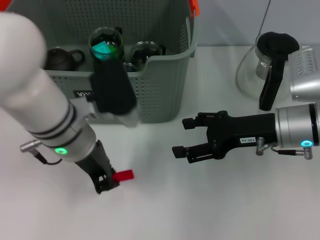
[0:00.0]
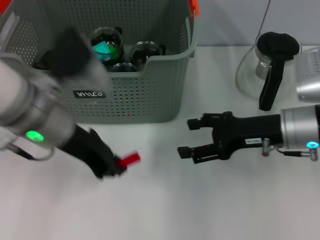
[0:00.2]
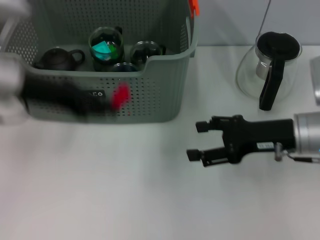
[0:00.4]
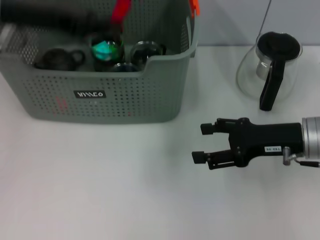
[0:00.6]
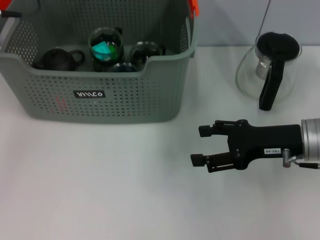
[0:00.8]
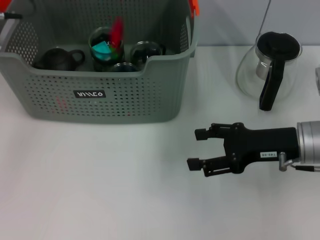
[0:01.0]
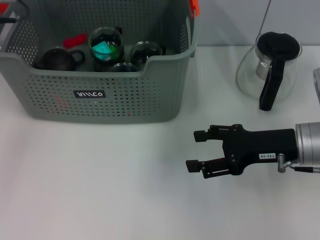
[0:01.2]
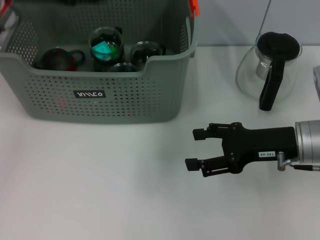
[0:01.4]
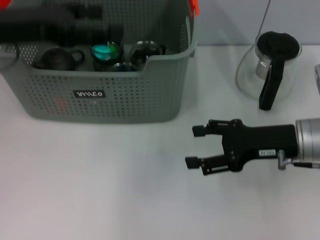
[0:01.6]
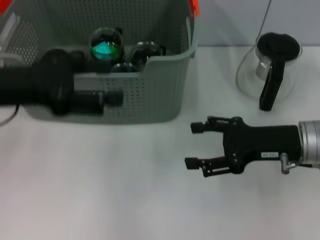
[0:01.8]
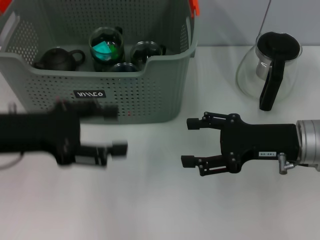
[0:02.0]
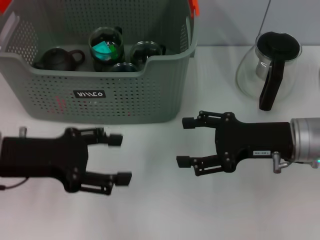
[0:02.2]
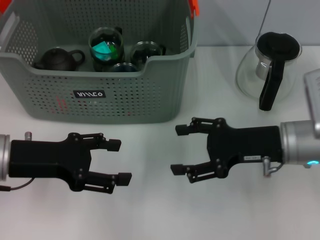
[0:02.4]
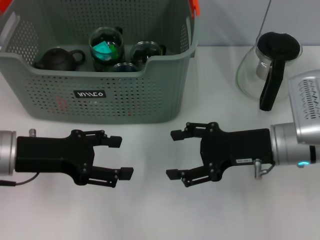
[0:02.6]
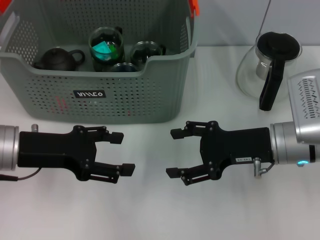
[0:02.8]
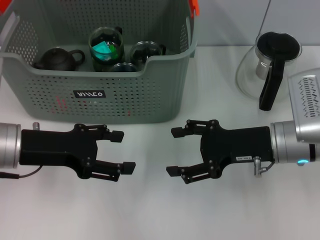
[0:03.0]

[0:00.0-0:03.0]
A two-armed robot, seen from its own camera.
Task of the whole recording: pick up the teacup on the table and place it into the storage bin, pick up the block on the table and place it into the storage bin.
Step, 0:00.0 to 0:01.2: Place the red block in the storage box with left gripper.
0:00.0 to 0:01.6: The left gripper is displaced to the left and upward by approximately 15 cm, moves approximately 10 cm forward and comes back, and opens up.
0:01.6 to 0:03.0: The left gripper shifts some 15 cm downward and backward.

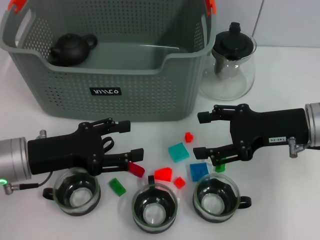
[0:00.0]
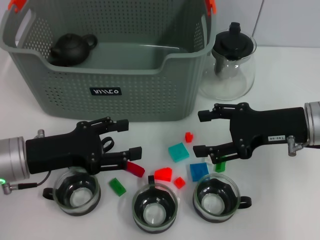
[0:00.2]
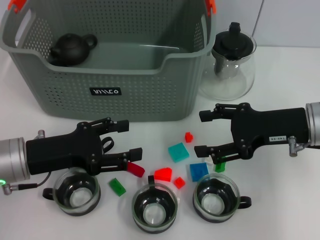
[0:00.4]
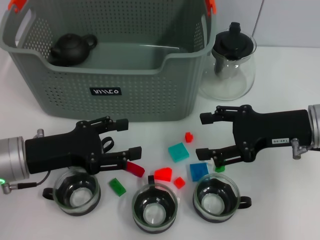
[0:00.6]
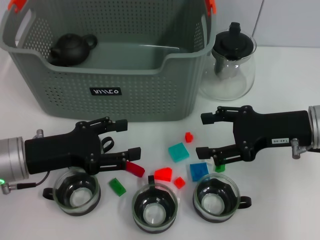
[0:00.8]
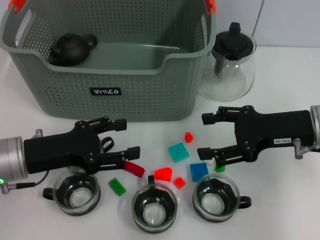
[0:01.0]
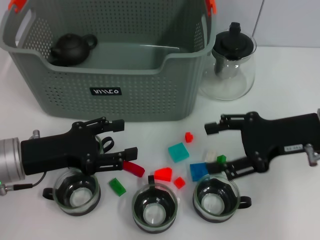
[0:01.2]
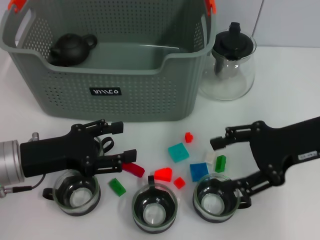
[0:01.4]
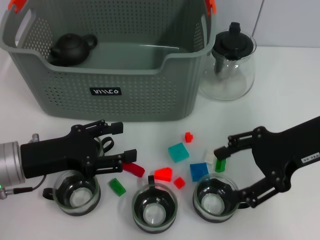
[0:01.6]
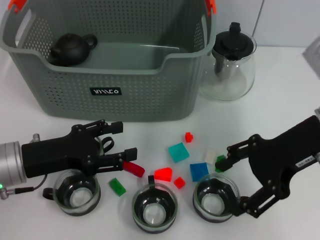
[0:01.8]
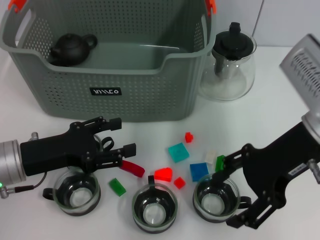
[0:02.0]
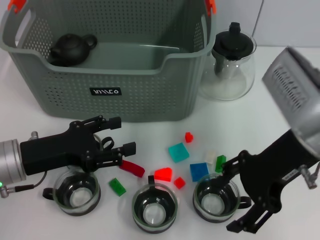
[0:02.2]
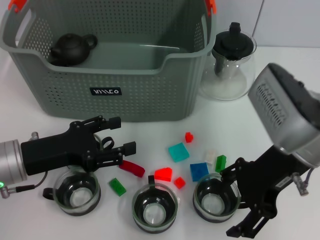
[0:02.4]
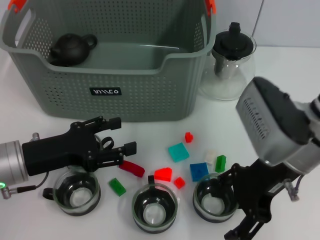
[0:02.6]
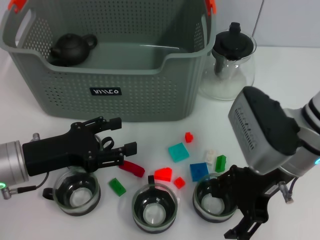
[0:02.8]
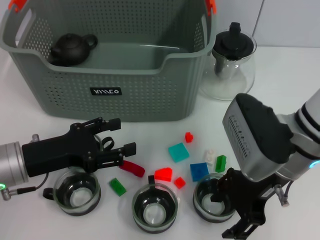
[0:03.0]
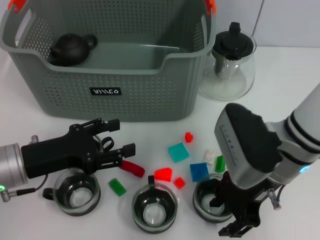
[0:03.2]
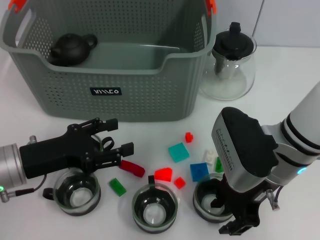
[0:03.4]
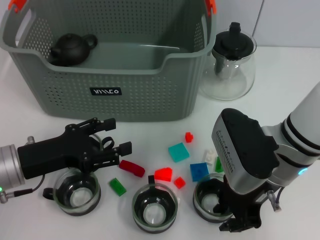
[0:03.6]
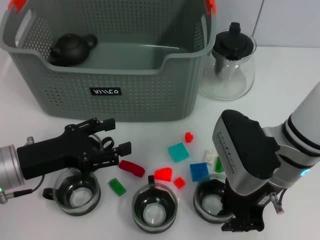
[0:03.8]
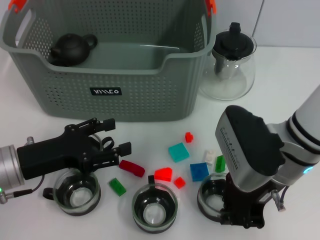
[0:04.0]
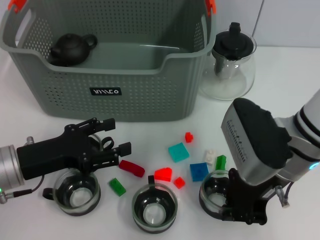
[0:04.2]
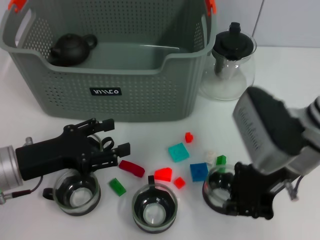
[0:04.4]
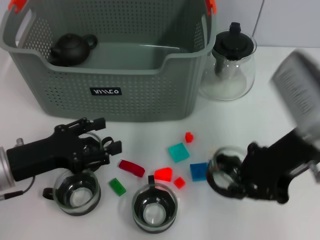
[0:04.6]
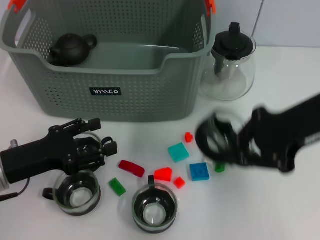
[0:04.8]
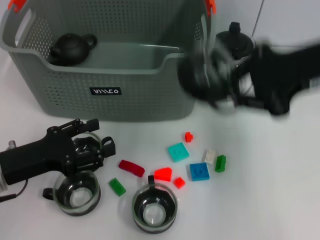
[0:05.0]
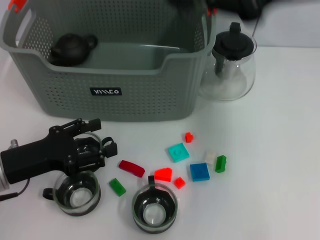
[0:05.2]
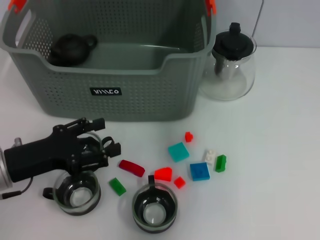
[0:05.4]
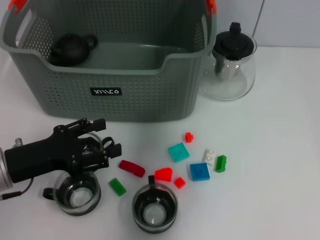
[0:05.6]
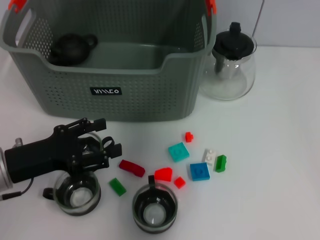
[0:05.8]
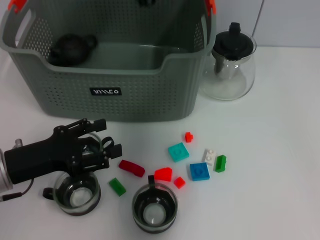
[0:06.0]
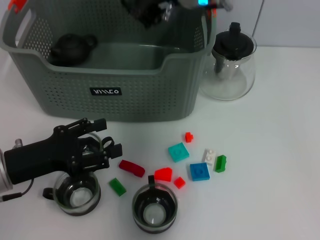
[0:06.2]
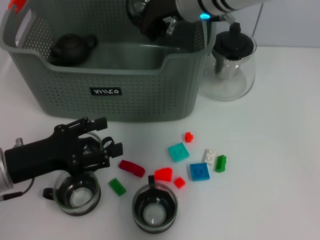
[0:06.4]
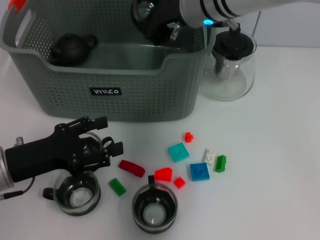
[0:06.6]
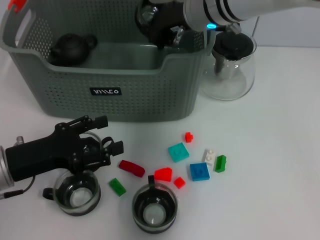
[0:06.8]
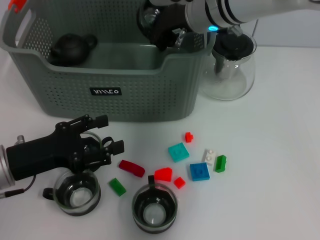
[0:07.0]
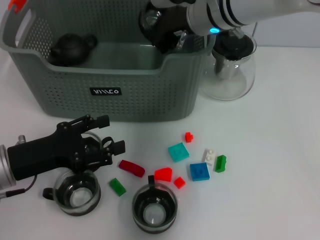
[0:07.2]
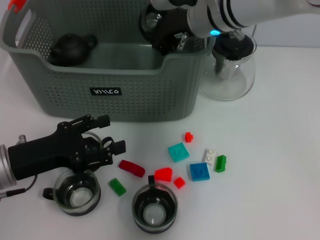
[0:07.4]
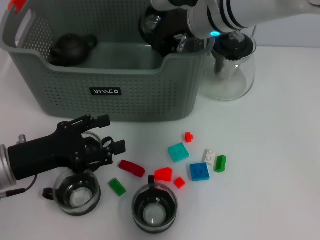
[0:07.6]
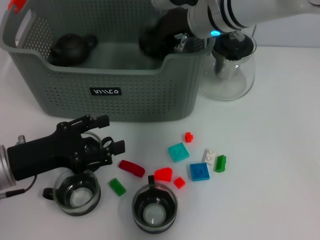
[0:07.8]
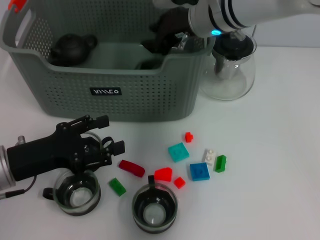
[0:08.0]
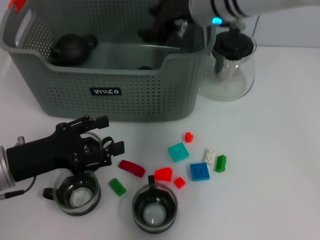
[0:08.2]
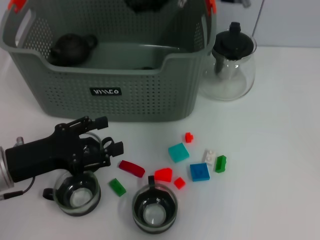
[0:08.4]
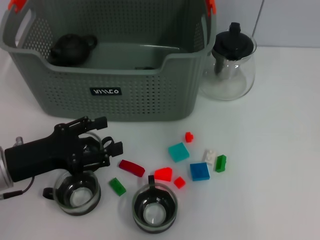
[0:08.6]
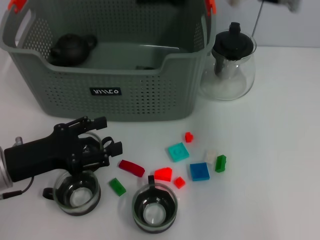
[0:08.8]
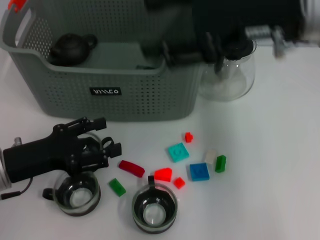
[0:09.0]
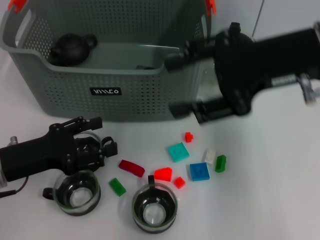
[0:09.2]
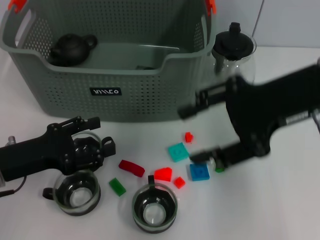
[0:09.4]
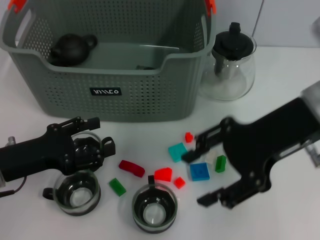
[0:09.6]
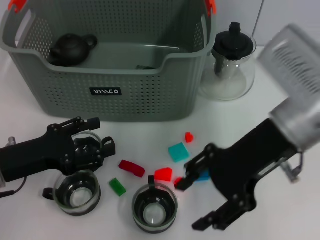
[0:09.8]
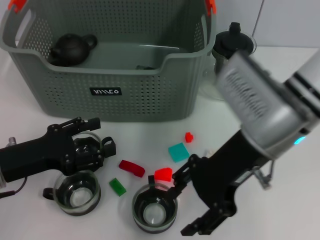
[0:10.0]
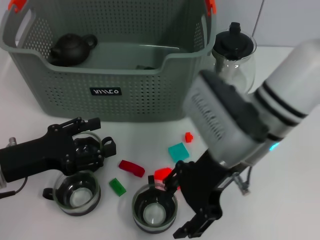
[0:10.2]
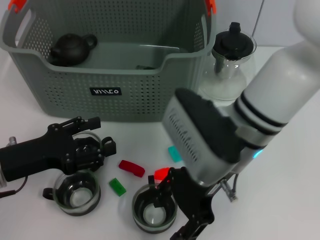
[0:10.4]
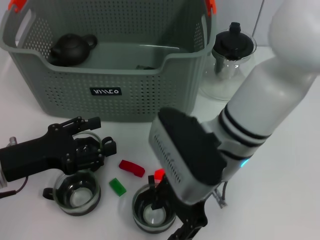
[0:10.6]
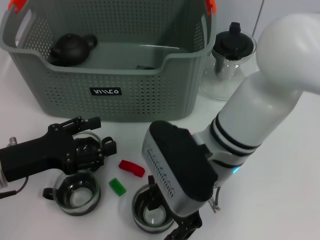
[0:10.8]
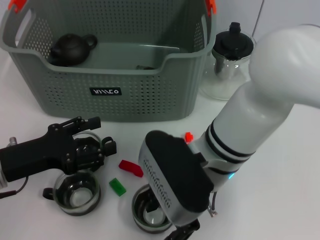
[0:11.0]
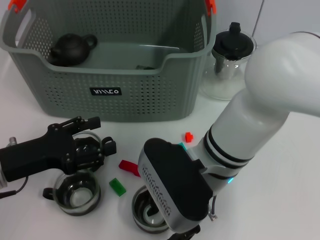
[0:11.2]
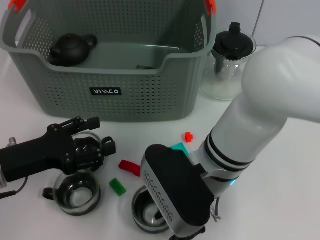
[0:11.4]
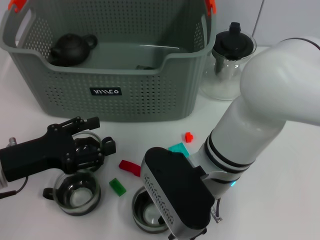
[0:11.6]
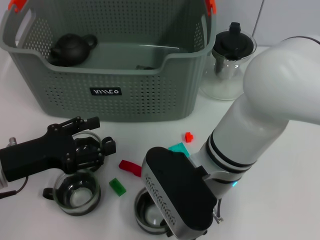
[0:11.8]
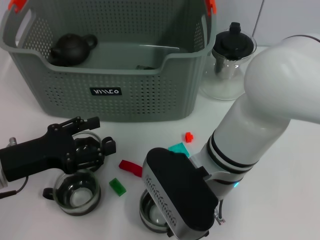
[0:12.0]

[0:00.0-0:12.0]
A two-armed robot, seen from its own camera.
Task of the whole recording: pick up the teacup on the table and place it into the storage bin, pick up the block on the table and place it into the storage bin.
Step, 0:00.0 to 0:03.8: Grasp the cup with right gripper.
Step, 0:04.0 to 0:08.0: Place the cup in the storage box with right gripper.
0:00.0 to 0:01.6: The right gripper moves about 5 cm.
0:01.6 to 0:03.0: The right gripper shifts approximately 10 cm to the left.
0:03.0 to 0:04.4: The right gripper closes its fingers.
0:04.4 to 0:06.0: The right gripper shifts roughly 25 cm forward, to the left and upward.
0:06.0 to 0:07.6: The right gripper heads downward, covering roughly 5 cm.
0:07.6 to 0:09.0: The right gripper shifts approximately 15 cm backward, to the right and upward, and opens.
0:09.0 to 0:10.4: The right gripper goes roughly 15 cm downward and to the left.
0:10.4 to 0:12.0: The right gripper shifts by roughly 5 cm, and closes.

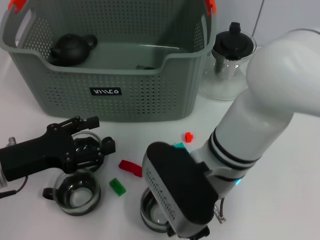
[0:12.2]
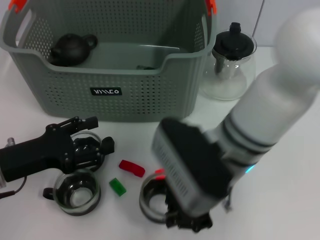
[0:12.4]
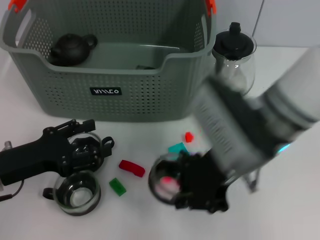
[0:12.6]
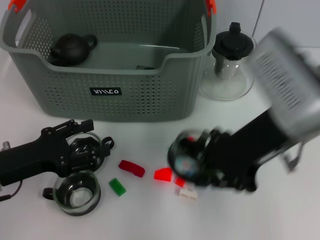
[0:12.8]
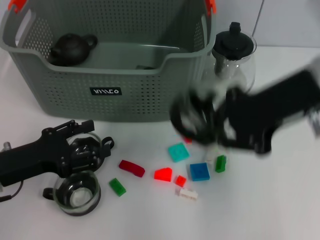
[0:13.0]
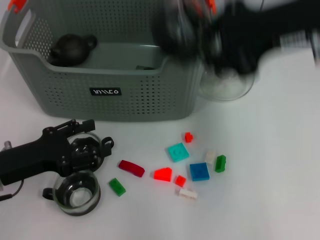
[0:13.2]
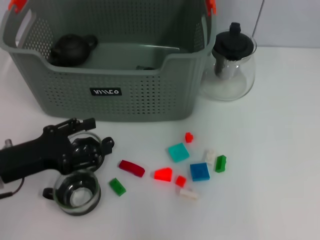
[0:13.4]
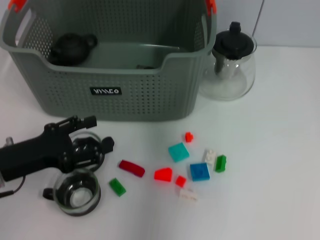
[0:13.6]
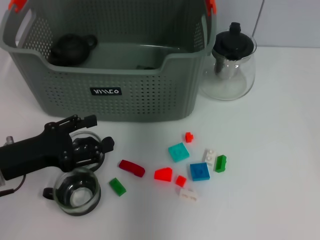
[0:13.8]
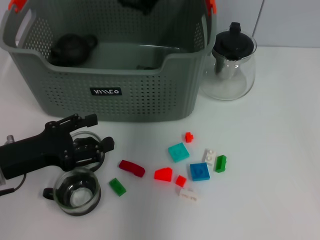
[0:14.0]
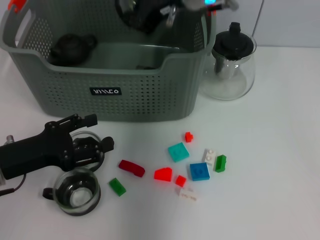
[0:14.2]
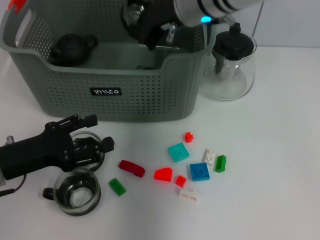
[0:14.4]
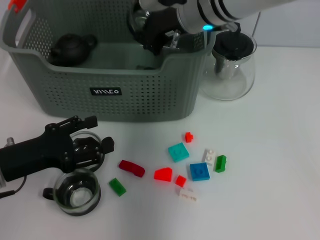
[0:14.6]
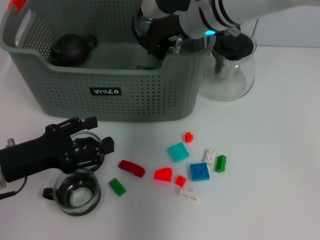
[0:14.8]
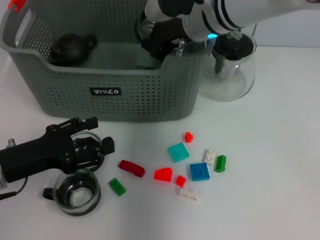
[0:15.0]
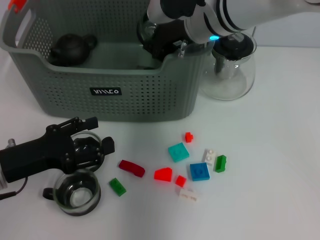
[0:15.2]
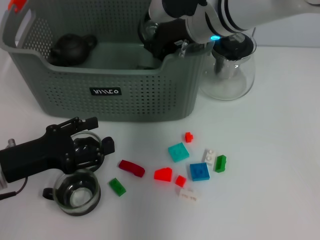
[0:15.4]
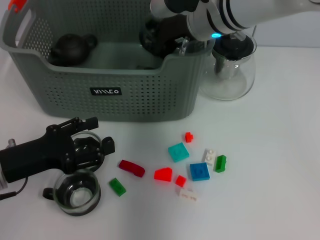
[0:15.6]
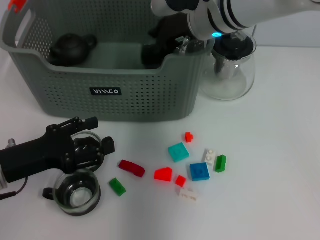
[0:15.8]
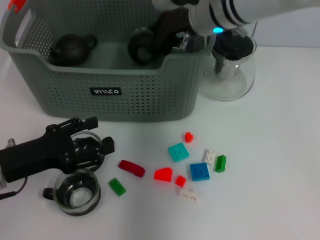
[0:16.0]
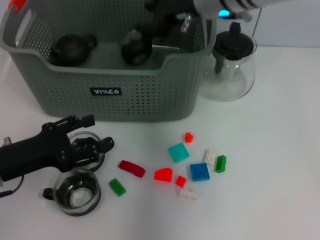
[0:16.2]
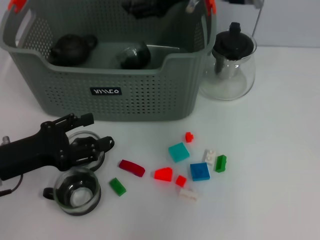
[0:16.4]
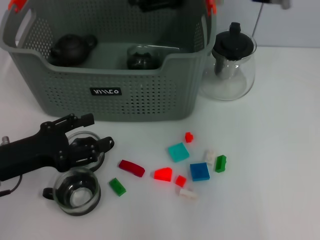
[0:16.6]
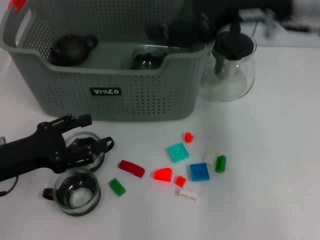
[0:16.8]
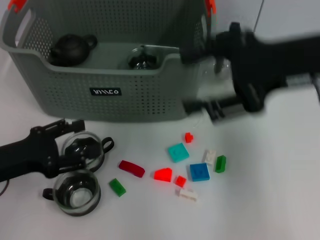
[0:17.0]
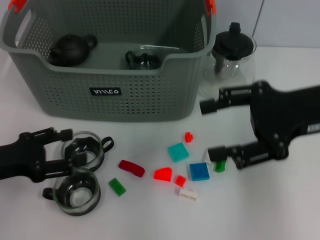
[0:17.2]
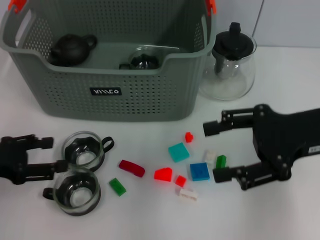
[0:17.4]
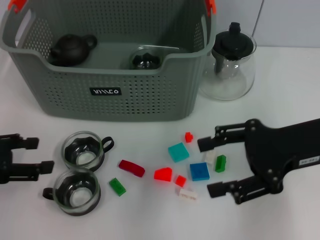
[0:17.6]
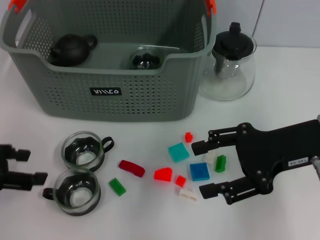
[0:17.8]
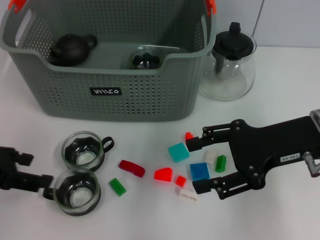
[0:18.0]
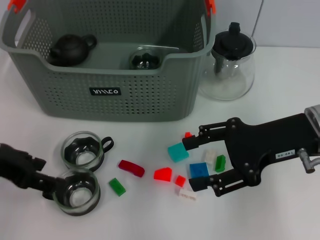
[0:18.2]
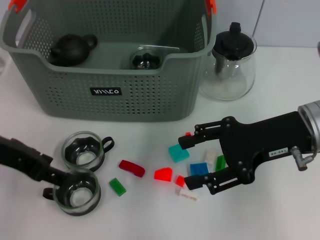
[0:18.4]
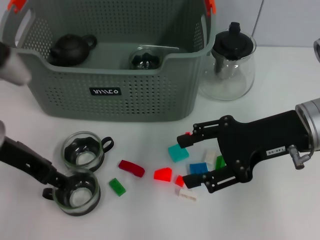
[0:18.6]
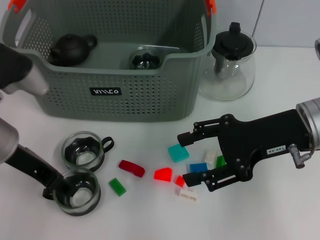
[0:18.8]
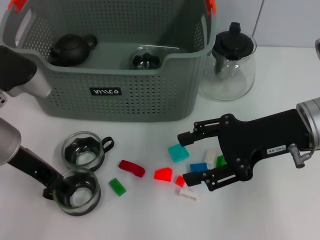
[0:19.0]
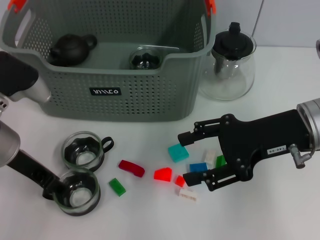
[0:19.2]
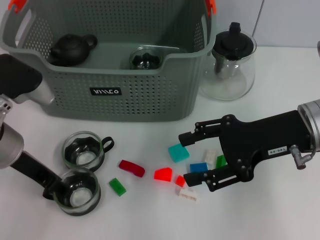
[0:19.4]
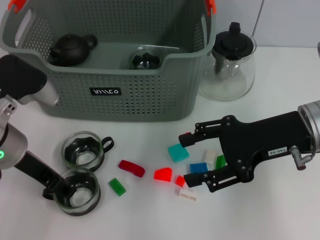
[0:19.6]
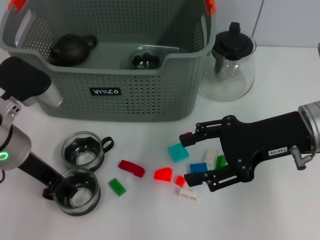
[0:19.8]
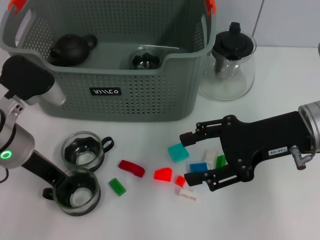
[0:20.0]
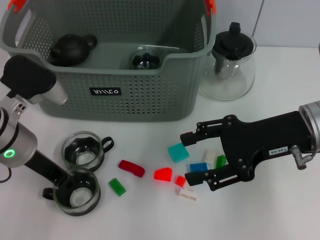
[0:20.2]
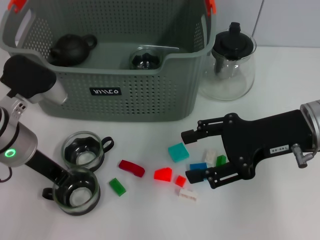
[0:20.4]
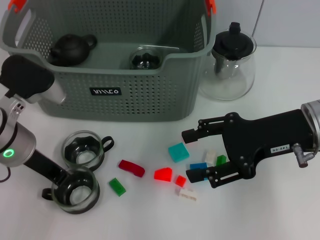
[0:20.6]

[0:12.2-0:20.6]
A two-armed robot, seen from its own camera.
Task of the whole recording: pick up the teacup on the table and place it into the storage bin, pick up the block on the table and place it into the storage bin.
Step, 0:12.2 to 0:16.0: Place the cup in the storage box with right gripper.
Step, 0:16.2 to 0:20.4: Grasp the cup with left gripper.
0:12.2 to 0:13.6: The right gripper is displaced upward and forward by some 25 cm.
0:13.6 to 0:15.0: The right gripper travels downward by about 15 cm.
0:15.0 to 0:16.4: The right gripper shifts approximately 5 cm upward, and opens its fingers.
0:16.4 to 0:17.8: The left gripper goes about 10 cm upward and to the left. The right gripper heads backward, to the right and downward, covering approximately 20 cm.
0:17.8 to 0:19.2: The left gripper goes approximately 10 cm to the right and forward.
0:19.2 to 0:20.6: The left gripper closes its fingers.
